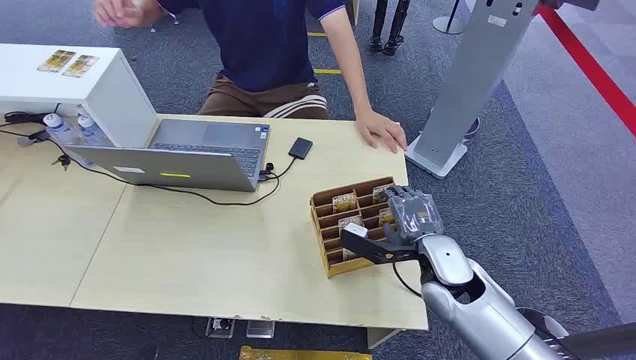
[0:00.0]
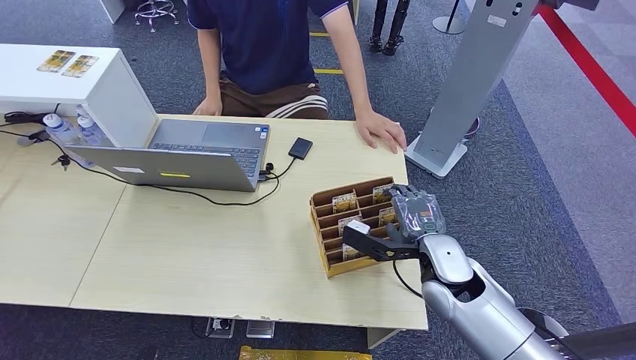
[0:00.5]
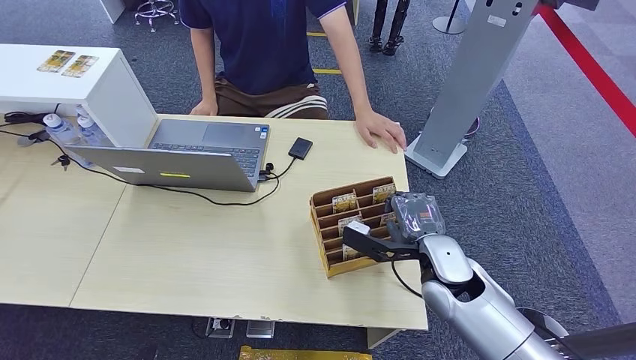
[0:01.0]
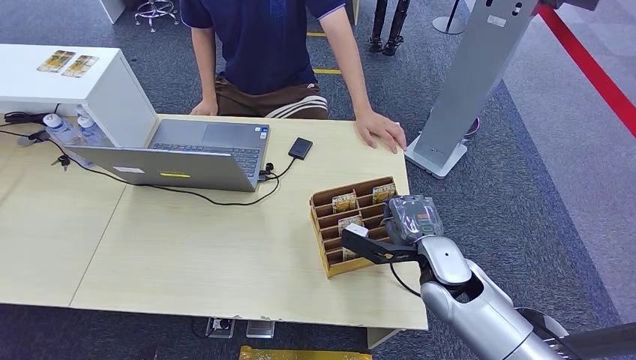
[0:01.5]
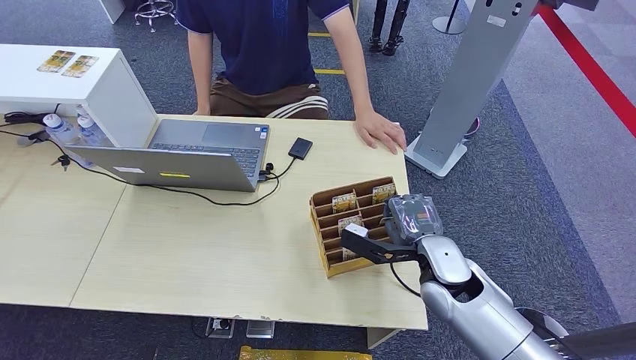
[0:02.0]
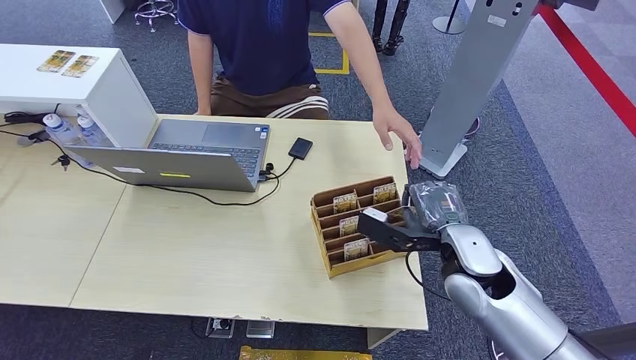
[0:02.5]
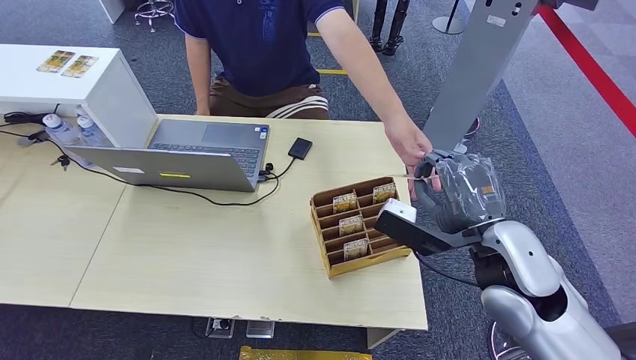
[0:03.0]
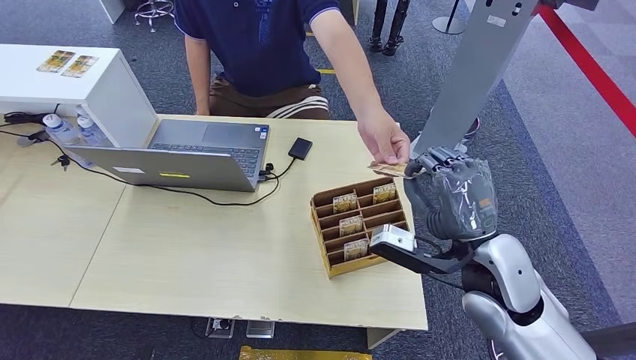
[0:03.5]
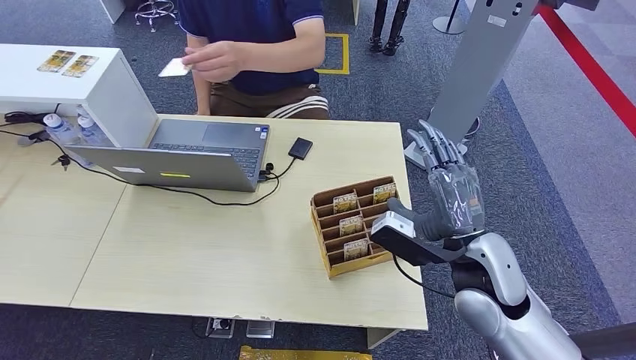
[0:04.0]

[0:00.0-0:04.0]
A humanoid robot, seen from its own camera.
Step, 0:00.0 to 0:01.5: Pick up the key card from the card box.
Step, 0:02.0 to 0:04.0: Hand the key card to the target.
0:02.0 to 0:04.0: The right hand heads upward, covering approximately 10 cm.
